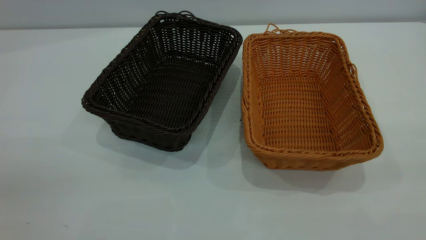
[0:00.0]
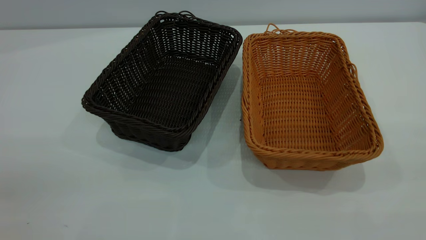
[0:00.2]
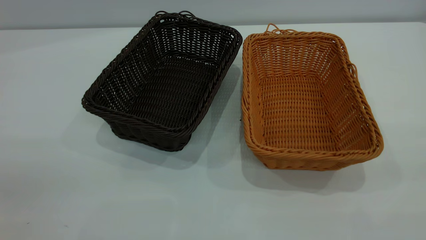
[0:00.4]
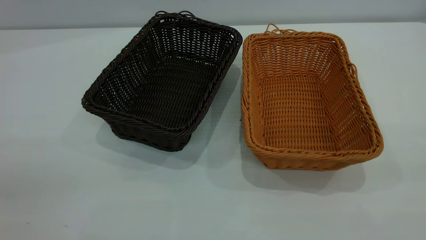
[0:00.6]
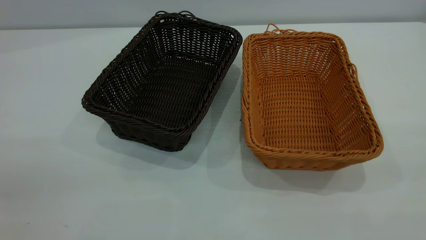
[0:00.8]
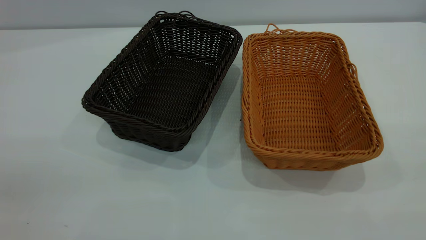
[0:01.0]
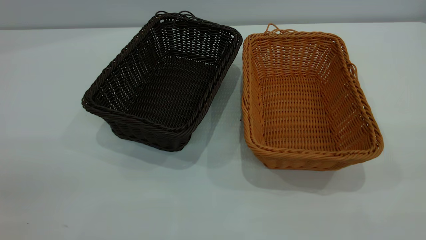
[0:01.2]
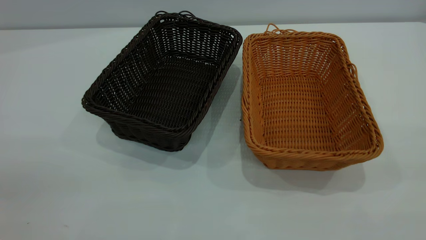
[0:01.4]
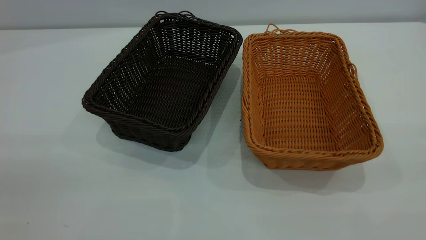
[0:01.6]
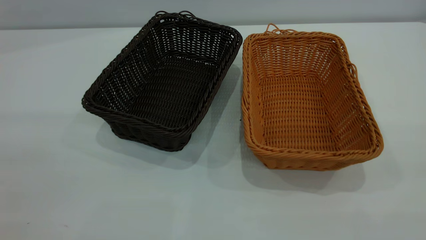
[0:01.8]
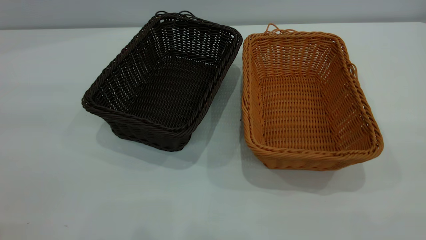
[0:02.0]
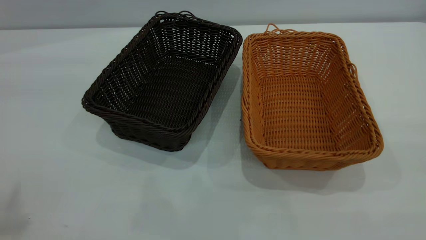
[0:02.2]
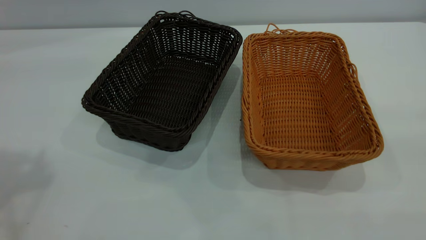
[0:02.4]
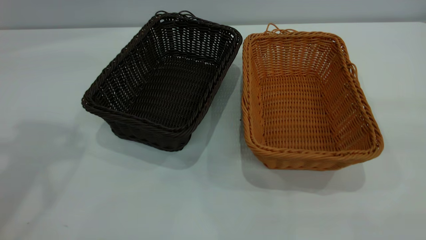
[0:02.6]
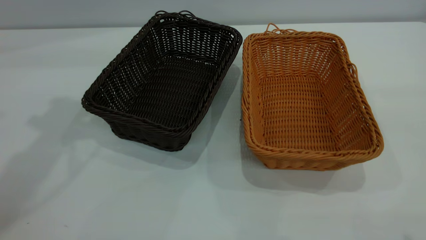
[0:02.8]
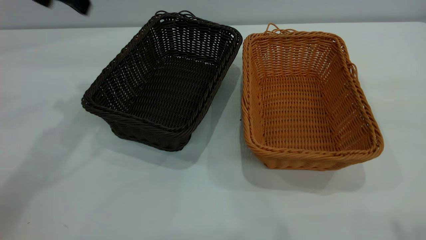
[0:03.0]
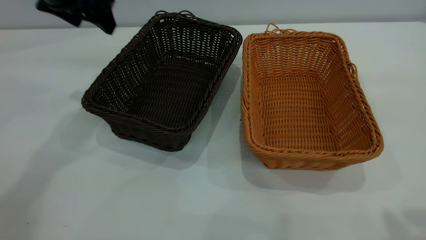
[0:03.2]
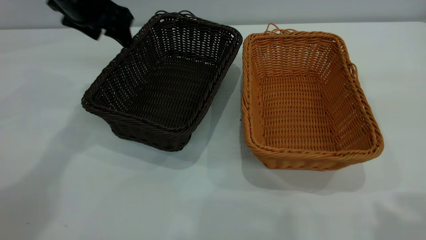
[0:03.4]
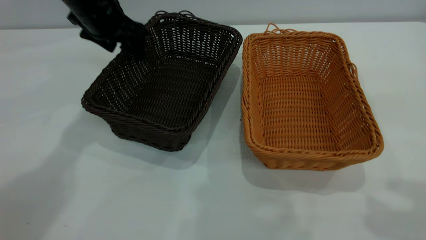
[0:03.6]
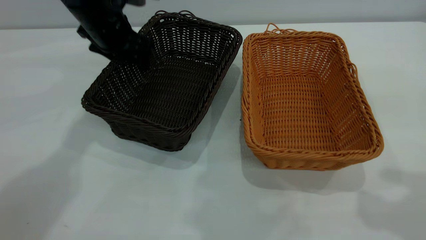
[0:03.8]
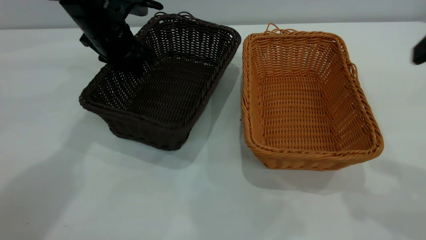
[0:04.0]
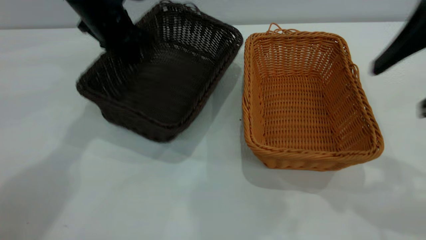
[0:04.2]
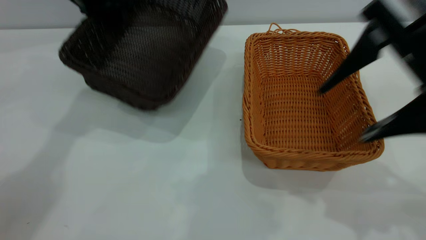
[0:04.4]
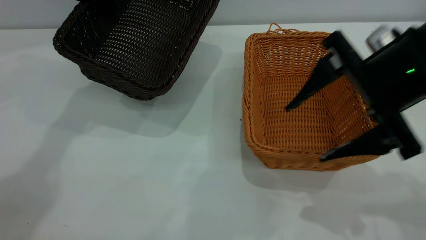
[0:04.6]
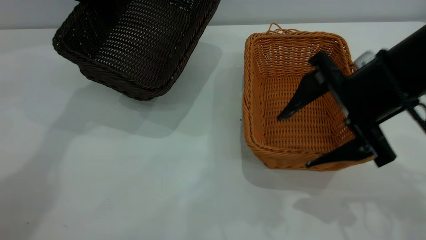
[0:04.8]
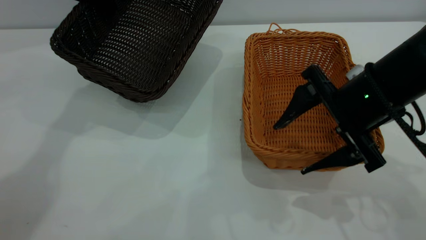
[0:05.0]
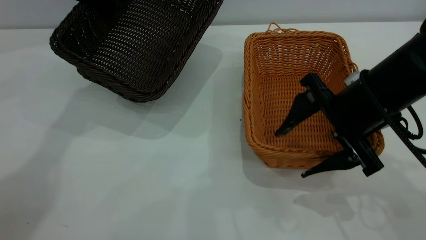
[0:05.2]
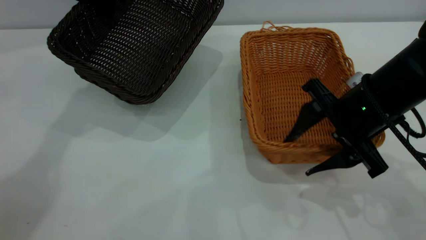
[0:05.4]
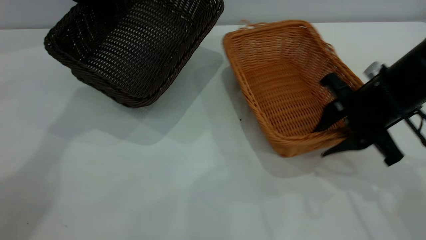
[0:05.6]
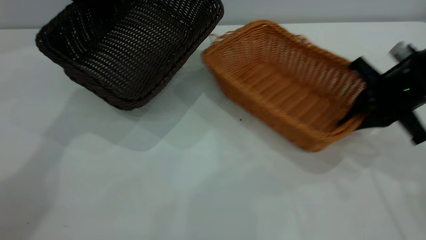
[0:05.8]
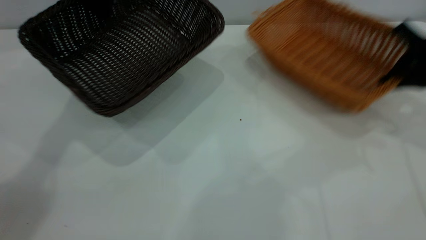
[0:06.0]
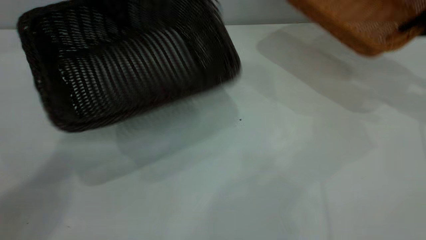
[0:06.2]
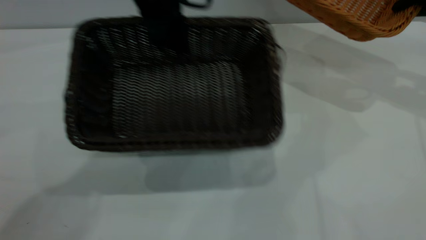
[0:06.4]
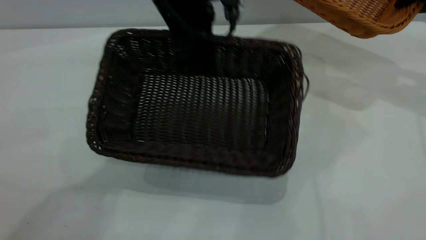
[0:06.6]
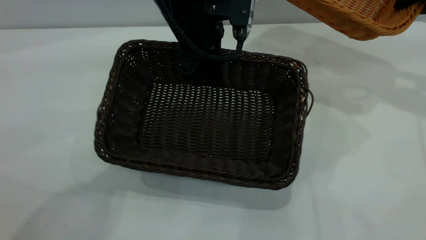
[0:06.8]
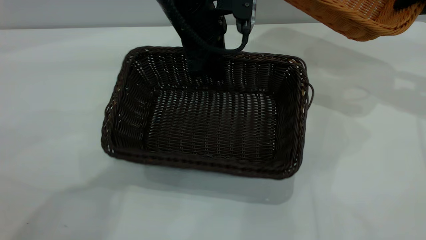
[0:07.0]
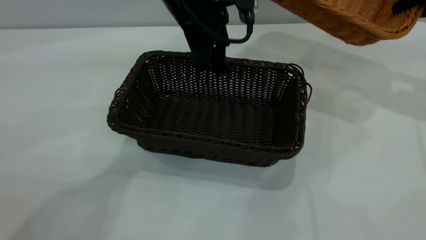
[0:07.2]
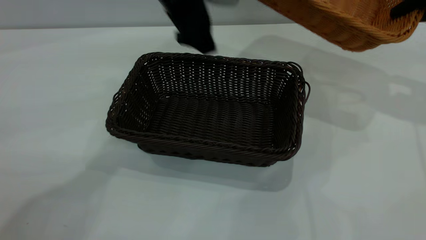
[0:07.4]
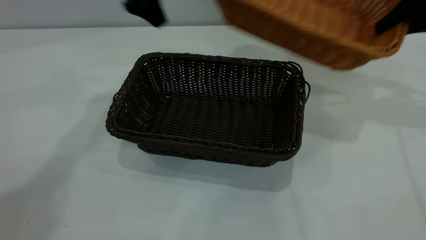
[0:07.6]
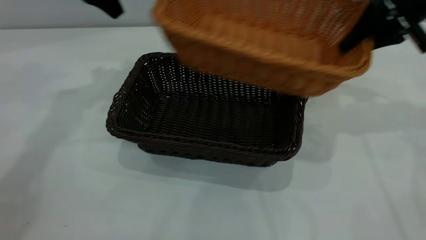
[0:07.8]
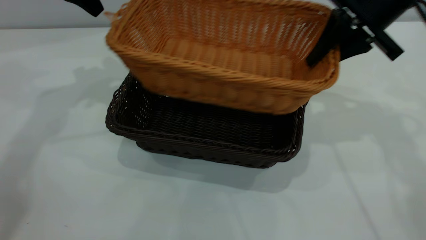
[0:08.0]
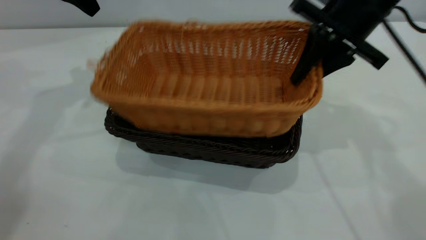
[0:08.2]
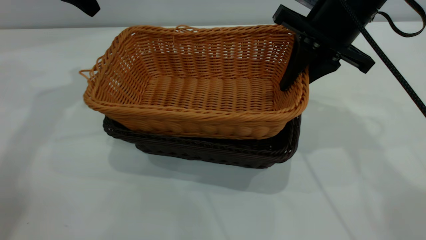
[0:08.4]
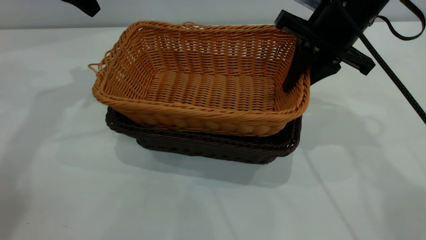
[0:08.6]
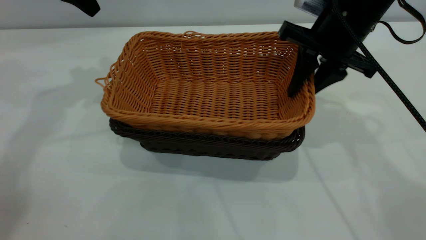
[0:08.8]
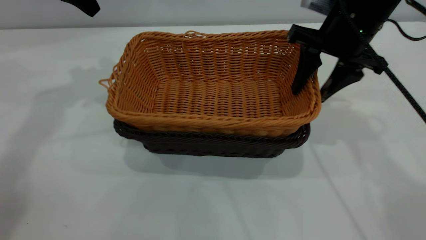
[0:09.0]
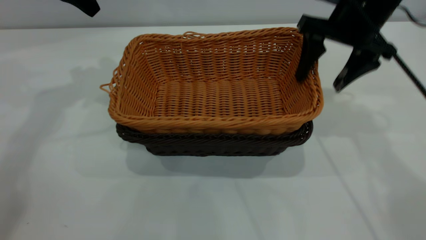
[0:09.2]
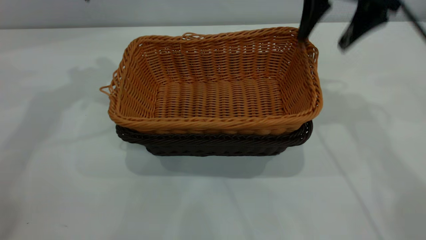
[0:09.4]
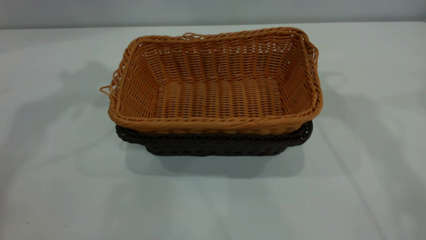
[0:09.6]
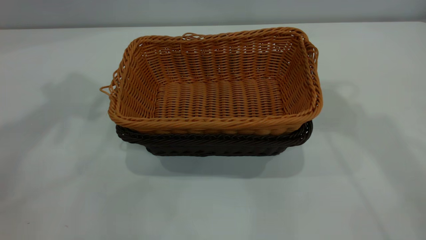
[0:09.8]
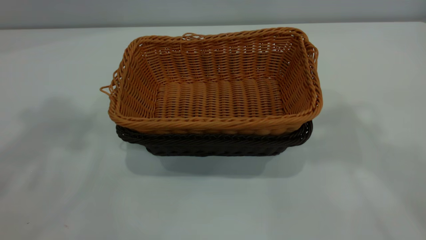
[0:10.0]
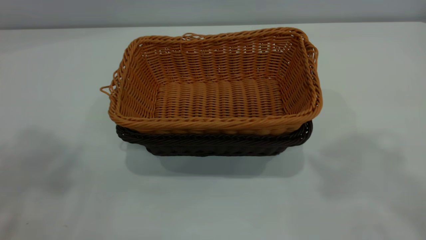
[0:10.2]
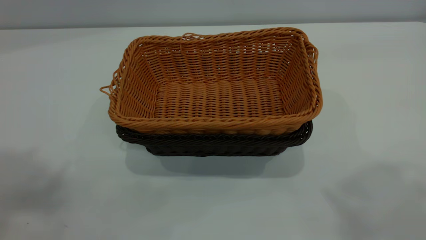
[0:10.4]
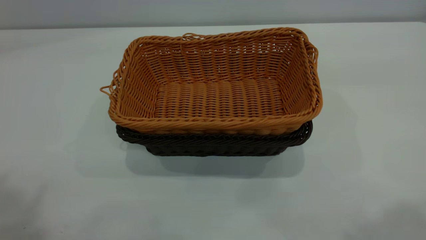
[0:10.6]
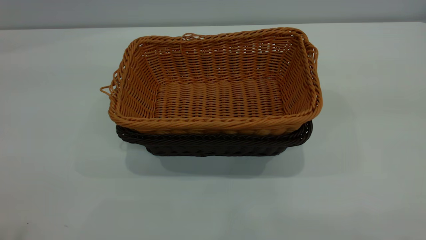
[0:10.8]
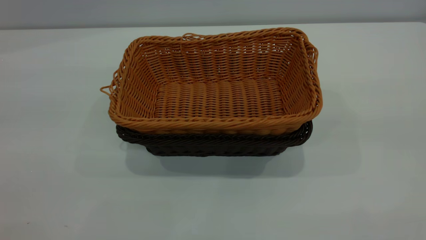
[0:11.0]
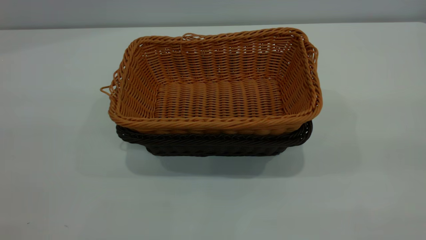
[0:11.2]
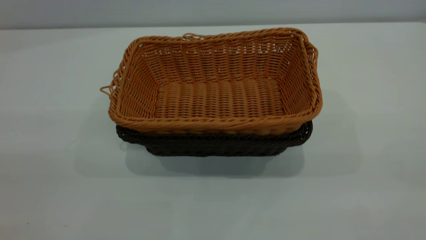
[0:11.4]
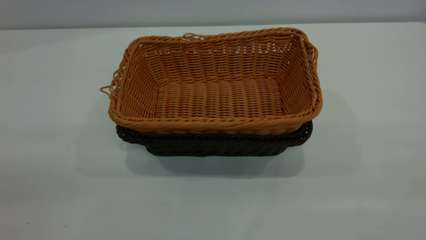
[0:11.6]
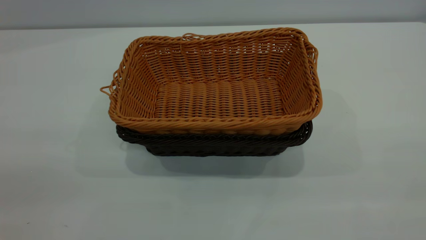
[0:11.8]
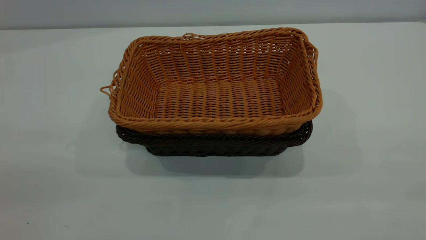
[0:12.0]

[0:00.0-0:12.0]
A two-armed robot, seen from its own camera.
Task of the whole recording: the left gripper grasp the black basket and place it in the center of the table, the right gripper grasp the brown basket and place it inside the black one.
Step, 0:00.0 to 0:06.0: Pick up the light basket with the right gripper.
Step, 0:06.2 to 0:07.4: Move the dark basket to the center of view.
Step, 0:07.6 to 0:09.4: Place the light basket on the dark basket.
0:01.6 to 0:03.0: The left gripper goes approximately 40 cm forward.
0:03.0 to 0:04.4: The left gripper is displaced forward by some 10 cm, goes downward and returns, roughly 15 cm each way, and closes up. Meanwhile the right gripper heads downward, forward and to the left, covering approximately 20 cm.
0:04.4 to 0:06.0: The right gripper shifts approximately 20 cm to the right, forward and downward, and closes its fingers.
0:06.0 to 0:07.6: The left gripper travels to the right and back again, some 15 cm each way, and opens up. The right gripper moves upward, some 5 cm.
0:07.6 to 0:09.0: Both grippers move to the left, about 10 cm. The right gripper opens its fingers.
0:09.0 to 0:10.4: Both grippers move upward and backward, some 40 cm.

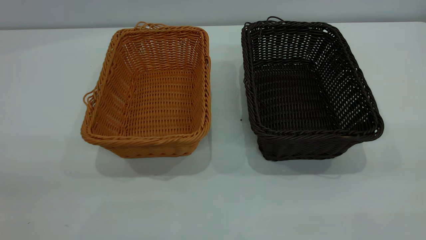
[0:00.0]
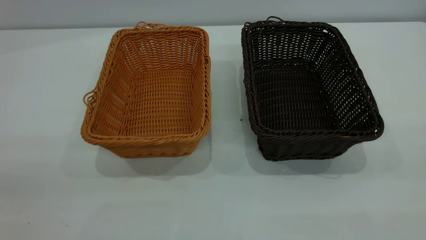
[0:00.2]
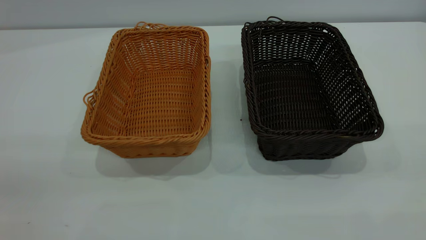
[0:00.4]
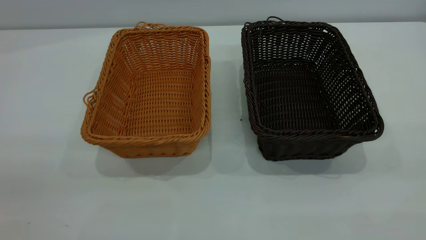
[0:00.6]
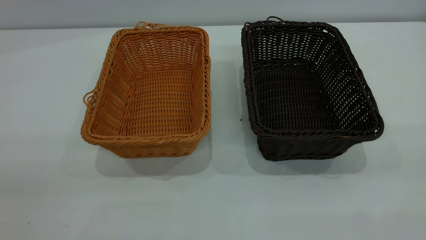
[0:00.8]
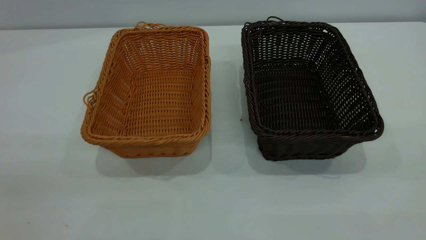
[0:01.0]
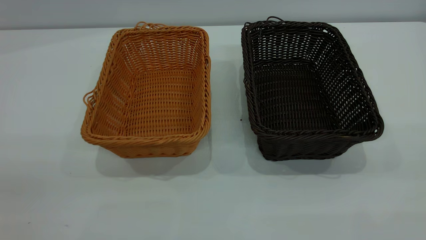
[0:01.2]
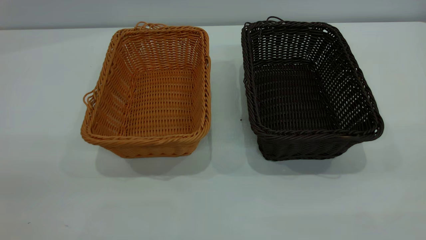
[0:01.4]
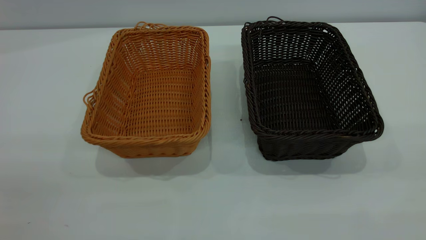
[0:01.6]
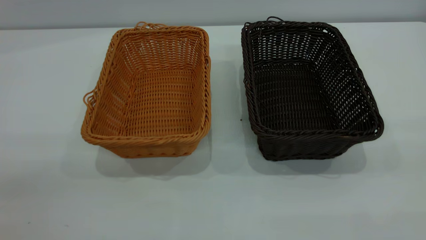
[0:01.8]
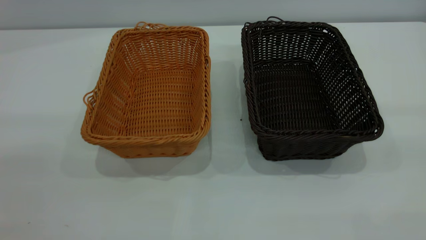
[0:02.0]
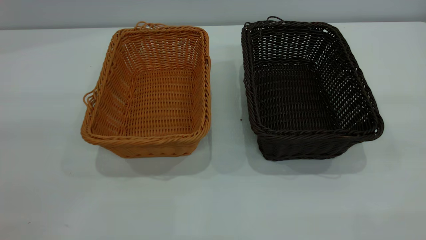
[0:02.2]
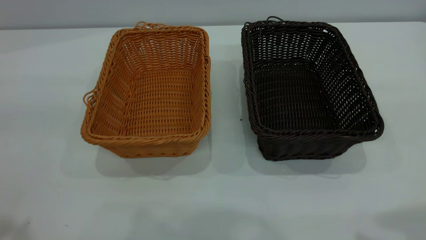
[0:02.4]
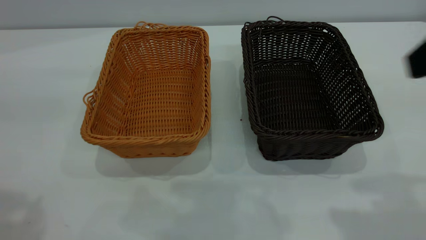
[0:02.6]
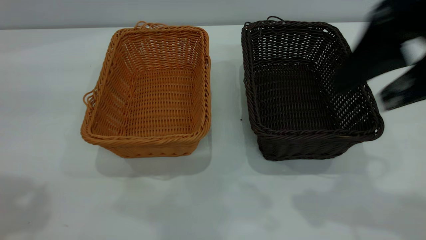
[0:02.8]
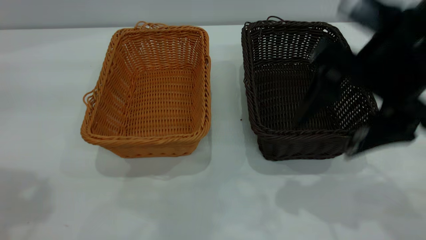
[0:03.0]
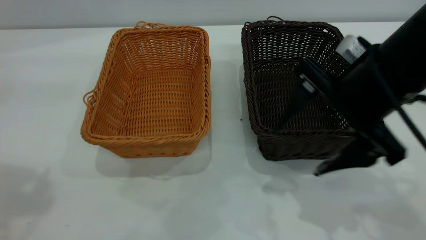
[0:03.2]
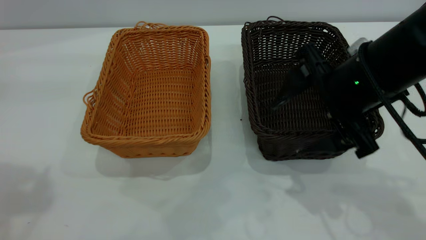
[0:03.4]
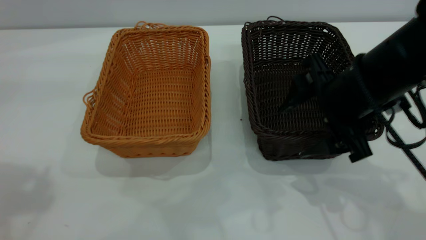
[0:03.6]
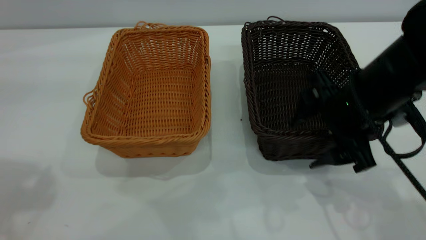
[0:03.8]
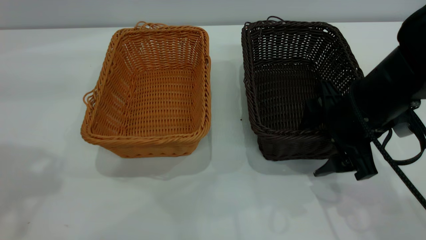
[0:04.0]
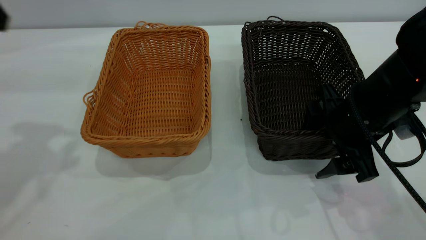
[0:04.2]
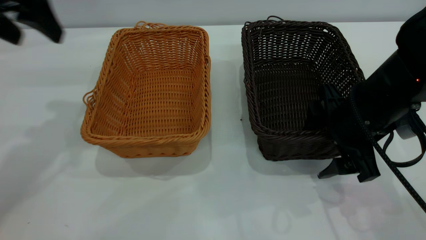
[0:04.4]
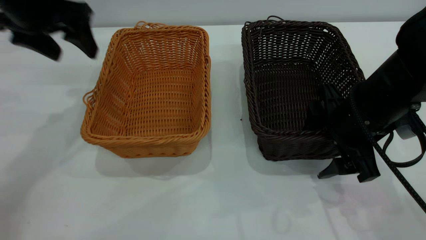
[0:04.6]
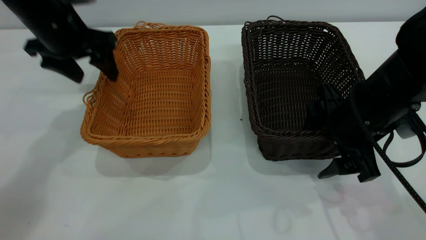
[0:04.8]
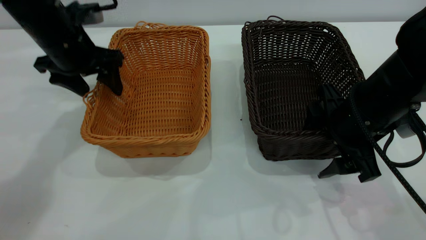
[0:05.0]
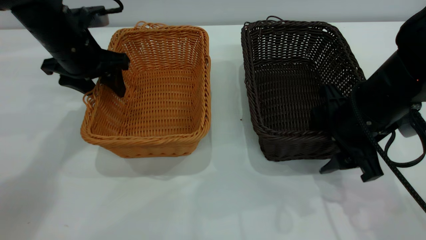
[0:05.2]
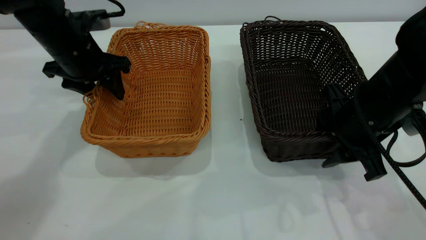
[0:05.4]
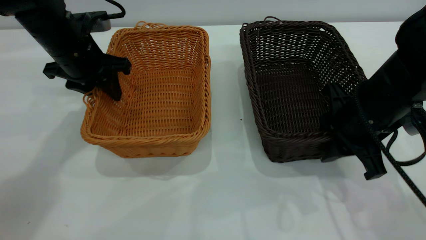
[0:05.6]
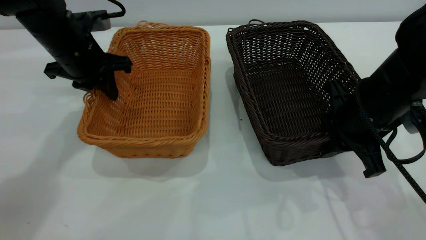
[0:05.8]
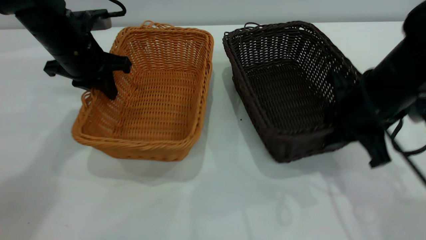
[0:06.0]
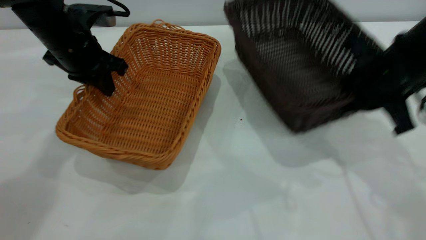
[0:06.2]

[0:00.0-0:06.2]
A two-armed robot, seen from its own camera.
Task of the whole recording: the left gripper grasp the brown basket and place it in the center of the table, the right gripper grasp the black basket and place it inside the brown one.
Step, 0:00.0 to 0:06.0: Pick up the light basket with the right gripper.
0:00.0 to 0:01.6: Neither gripper changes place.
0:01.6 to 0:03.2: The right gripper shifts roughly 35 cm forward, downward and to the left.
0:03.2 to 0:04.6: The right gripper travels downward by some 5 cm. Meanwhile the left gripper is displaced forward and downward by about 25 cm.
0:04.6 to 0:06.2: The left gripper is displaced downward by approximately 5 cm, and closes; the right gripper travels upward by some 5 cm, and closes.
